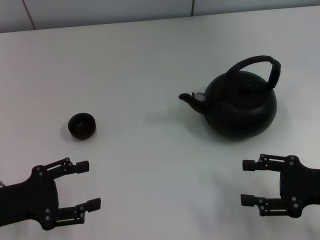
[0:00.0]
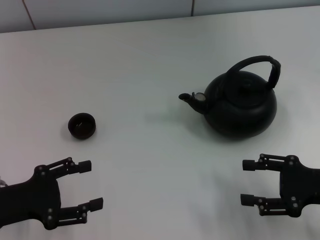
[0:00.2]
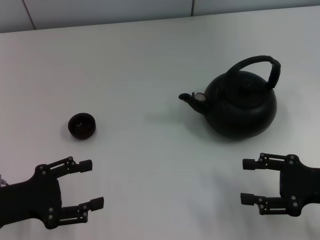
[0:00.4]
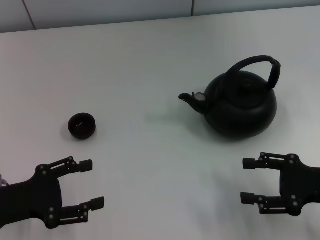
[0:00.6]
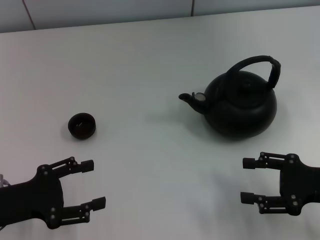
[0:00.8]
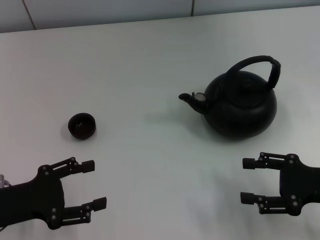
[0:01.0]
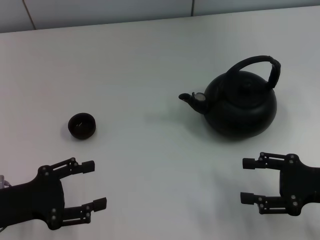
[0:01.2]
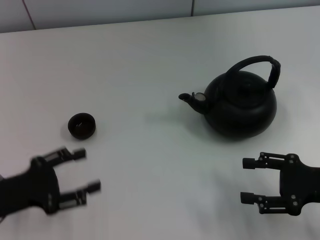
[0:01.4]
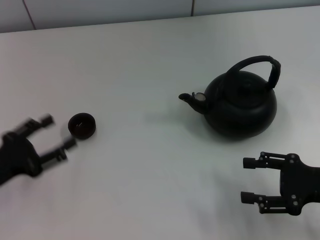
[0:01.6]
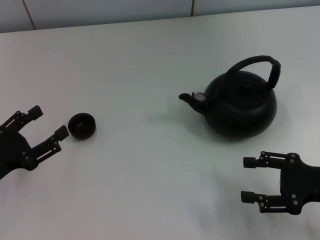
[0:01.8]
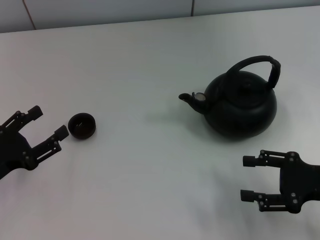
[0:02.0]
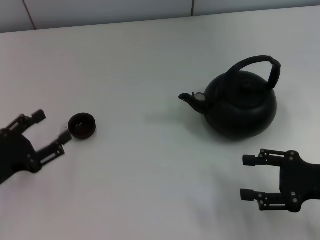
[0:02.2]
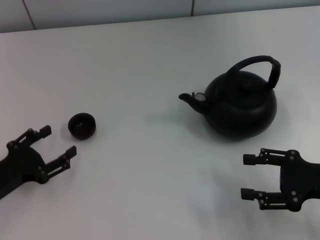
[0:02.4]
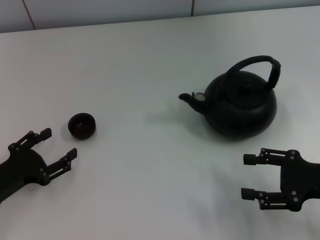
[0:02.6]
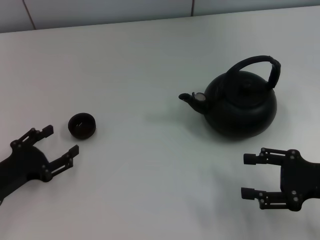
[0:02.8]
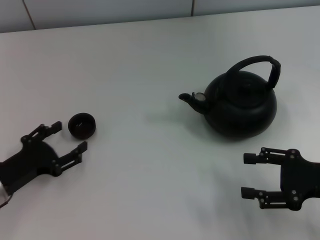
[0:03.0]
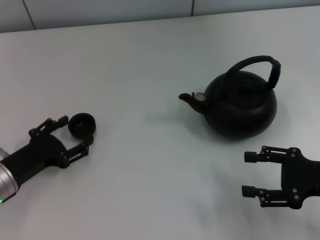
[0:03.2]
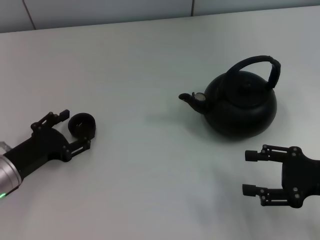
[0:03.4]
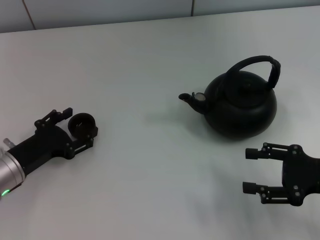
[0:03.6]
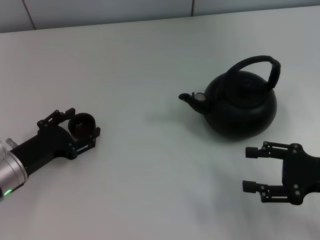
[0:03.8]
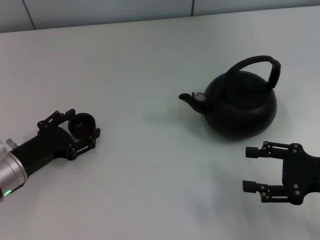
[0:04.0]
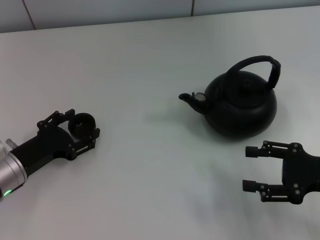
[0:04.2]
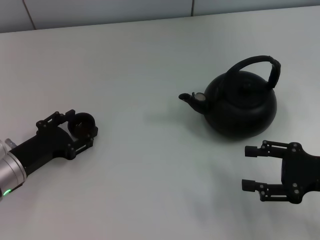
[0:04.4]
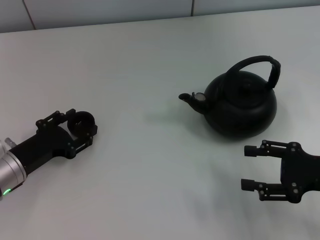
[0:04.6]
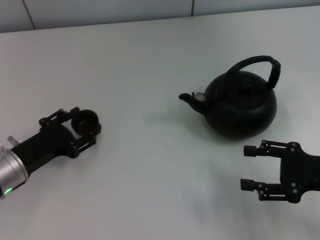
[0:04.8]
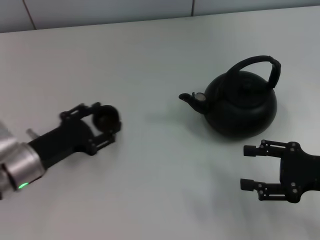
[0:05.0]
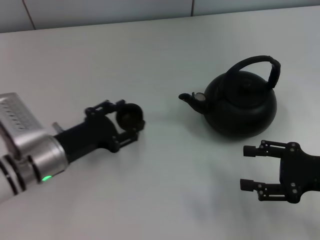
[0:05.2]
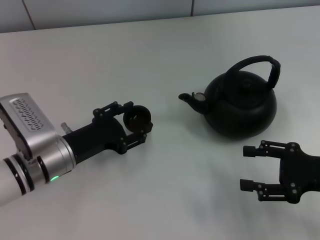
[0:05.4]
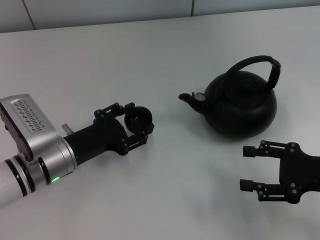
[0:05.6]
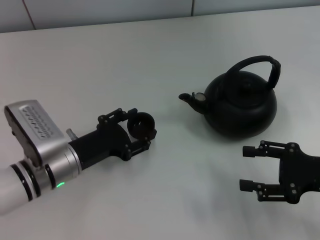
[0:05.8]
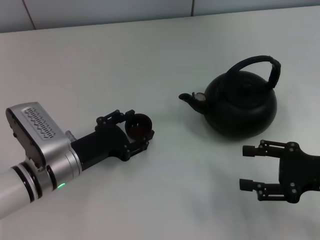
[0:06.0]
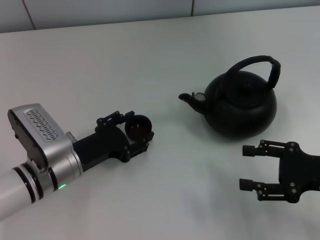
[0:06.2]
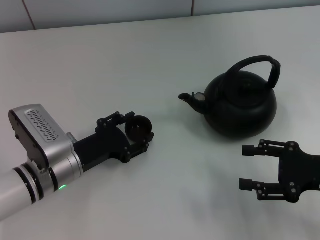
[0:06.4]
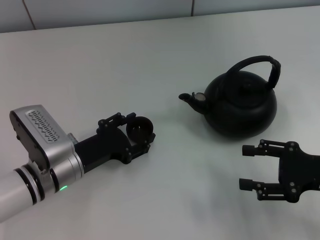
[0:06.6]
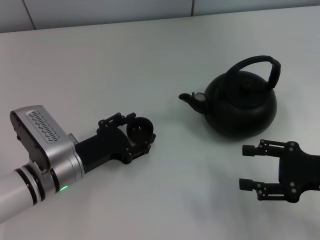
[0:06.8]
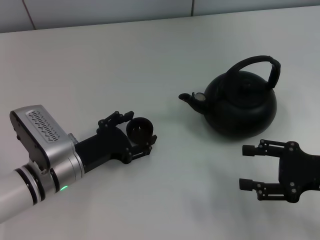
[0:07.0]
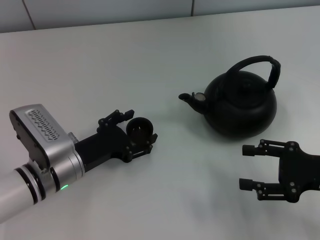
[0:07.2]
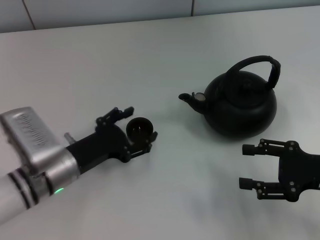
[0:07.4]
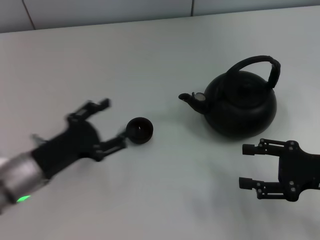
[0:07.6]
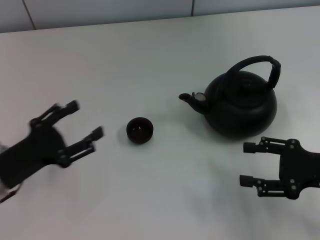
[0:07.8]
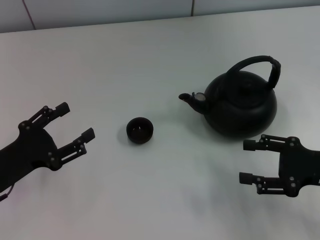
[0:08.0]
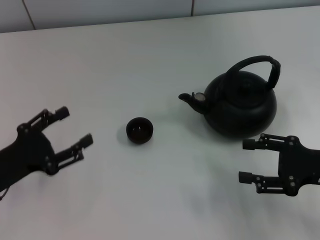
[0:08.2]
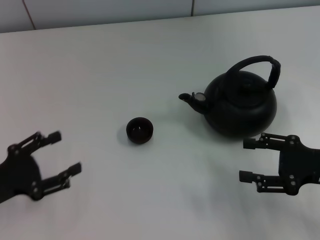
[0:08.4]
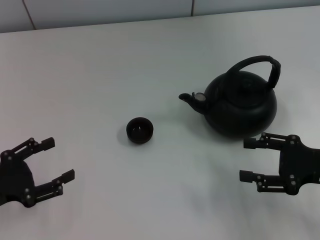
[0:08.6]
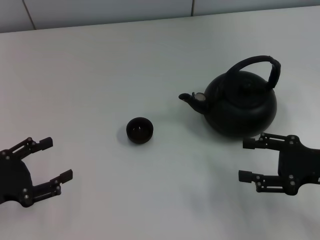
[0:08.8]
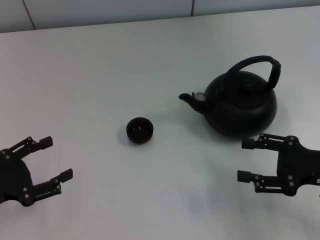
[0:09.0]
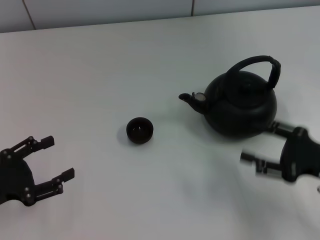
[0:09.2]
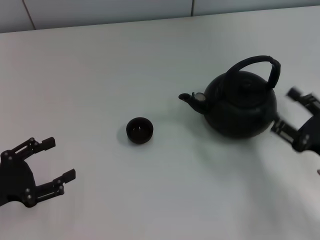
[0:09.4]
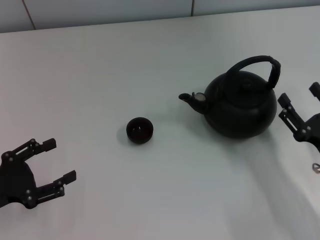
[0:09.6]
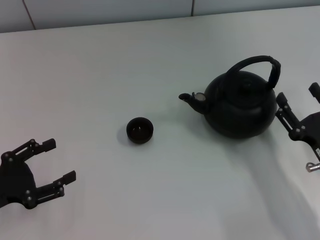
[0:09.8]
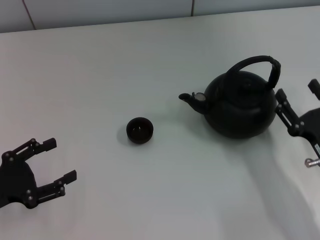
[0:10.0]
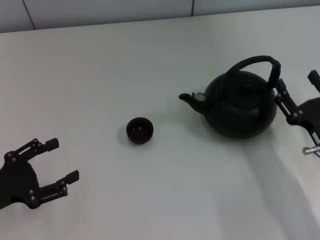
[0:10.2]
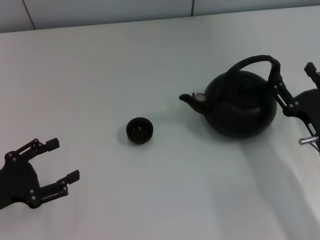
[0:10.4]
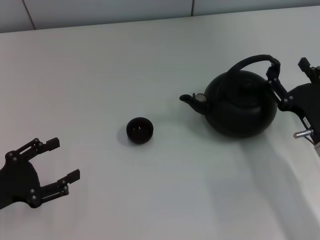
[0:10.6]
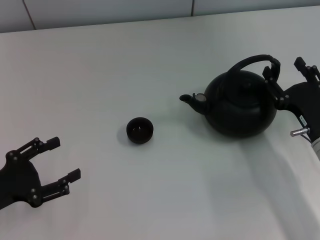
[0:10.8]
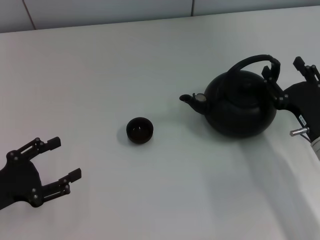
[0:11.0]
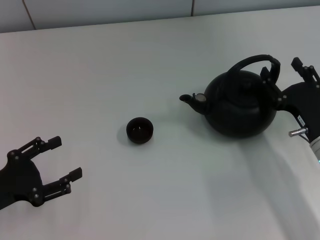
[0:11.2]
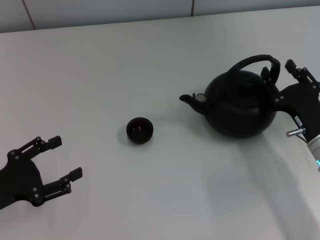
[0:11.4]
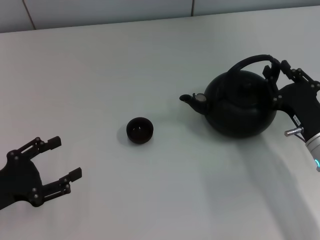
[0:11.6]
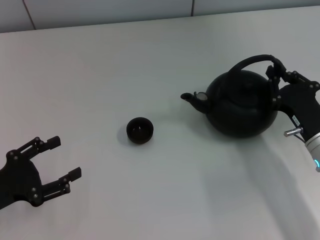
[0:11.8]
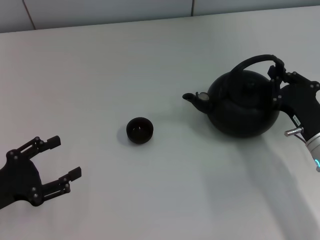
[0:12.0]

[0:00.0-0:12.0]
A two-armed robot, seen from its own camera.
Task of the whole recording: Grasp the handle of the teapot with one hand and pour tea into the teacup.
Step, 0:00.0 to 0:04.8: Pick up the teacup with the left gripper.
Step, 0:05.0 to 0:07.4: Place the teacup in the center of view with the left gripper.
0:01.6 to 0:03.0: The grippers move only a little.
0:03.0 to 0:04.4: The left gripper changes place by about 5 cm.
0:04.4 to 0:06.0: The left gripper moves to the right, some 10 cm.
0:06.0 to 0:07.6: The left gripper opens its fingers.
0:07.6 to 0:09.0: The left gripper shifts roughly 10 cm to the left.
0:09.0 to 0:10.4: The right gripper changes place by some 5 cm.
0:10.4 to 0:12.0: The right gripper closes its fingers.

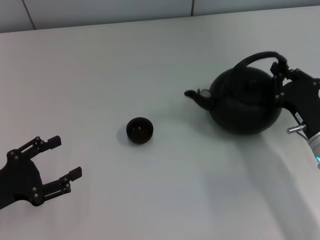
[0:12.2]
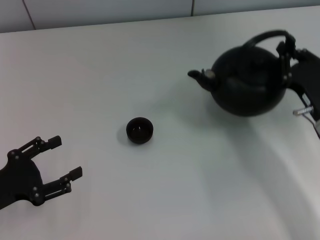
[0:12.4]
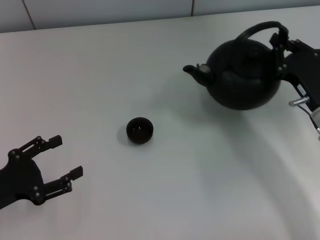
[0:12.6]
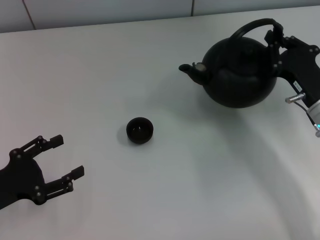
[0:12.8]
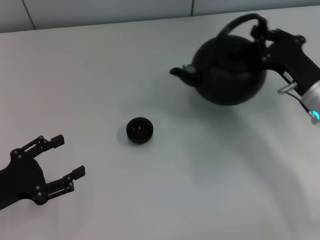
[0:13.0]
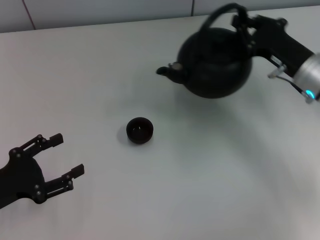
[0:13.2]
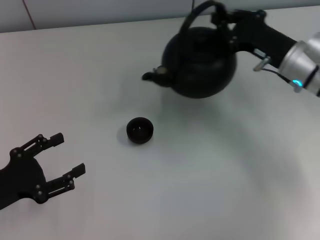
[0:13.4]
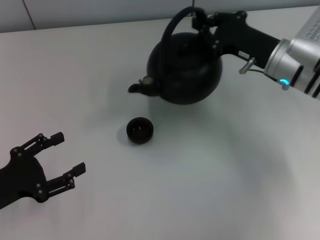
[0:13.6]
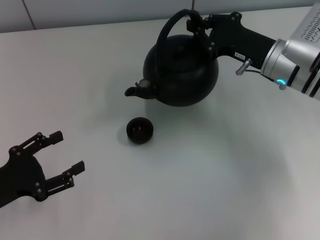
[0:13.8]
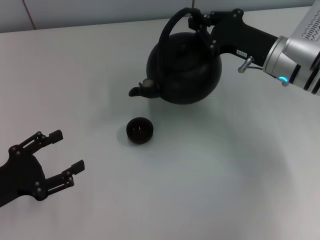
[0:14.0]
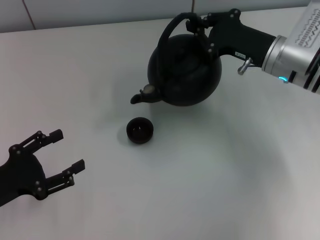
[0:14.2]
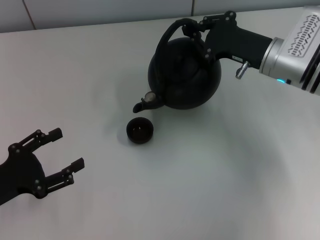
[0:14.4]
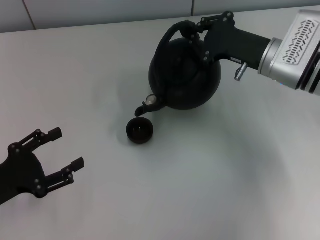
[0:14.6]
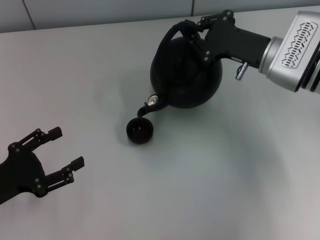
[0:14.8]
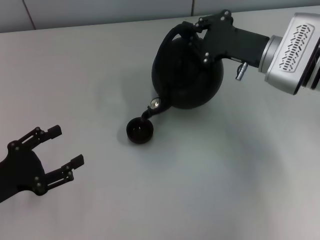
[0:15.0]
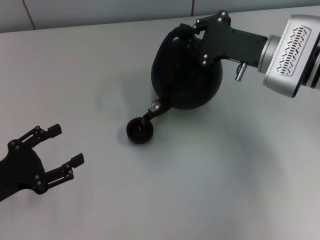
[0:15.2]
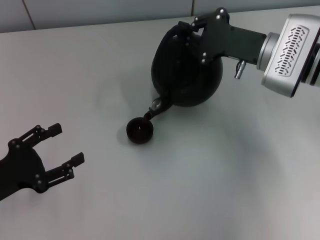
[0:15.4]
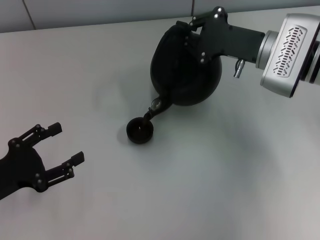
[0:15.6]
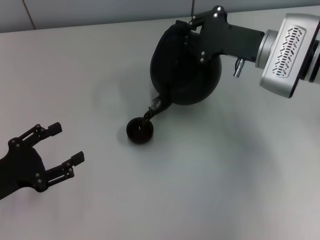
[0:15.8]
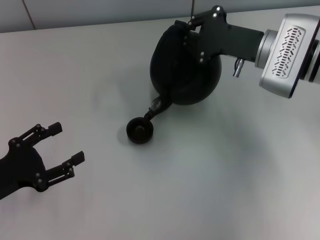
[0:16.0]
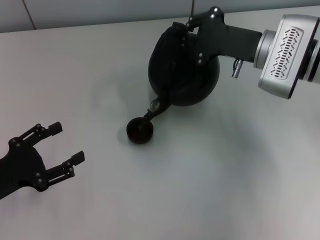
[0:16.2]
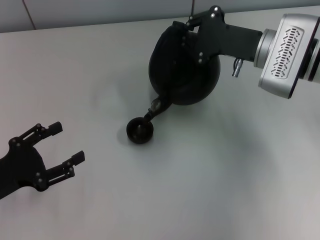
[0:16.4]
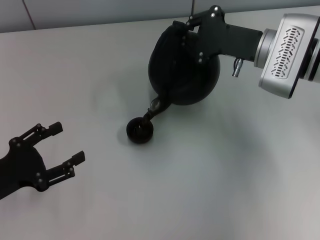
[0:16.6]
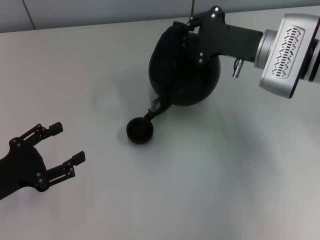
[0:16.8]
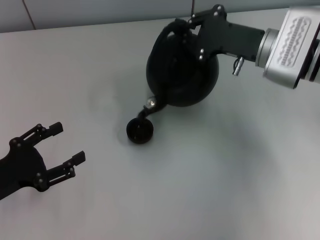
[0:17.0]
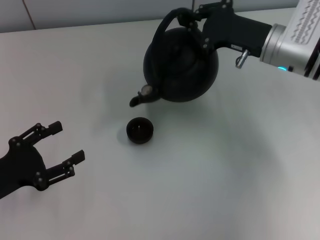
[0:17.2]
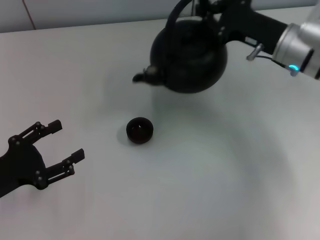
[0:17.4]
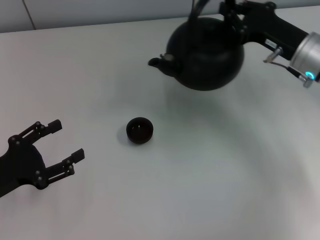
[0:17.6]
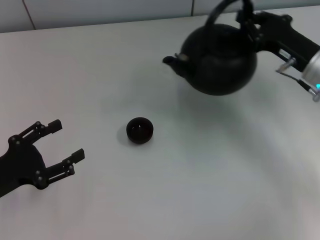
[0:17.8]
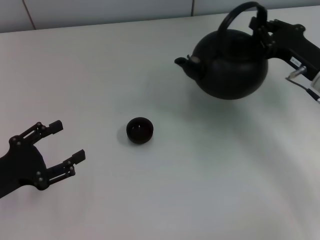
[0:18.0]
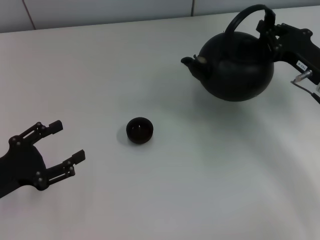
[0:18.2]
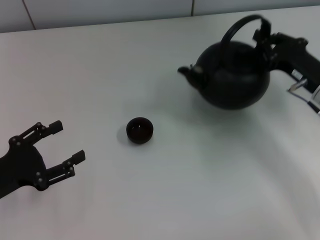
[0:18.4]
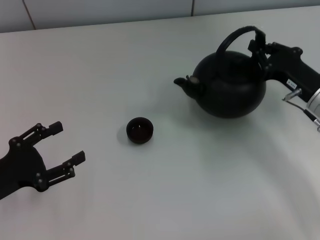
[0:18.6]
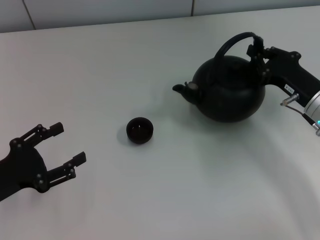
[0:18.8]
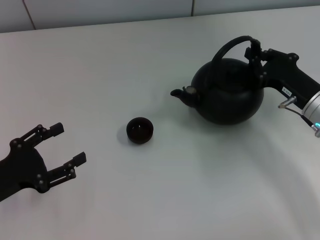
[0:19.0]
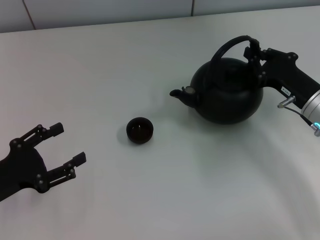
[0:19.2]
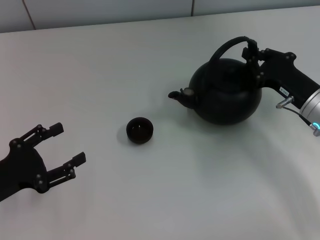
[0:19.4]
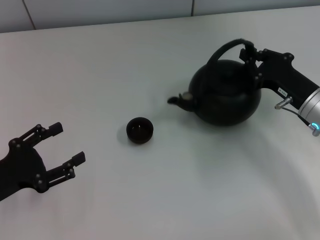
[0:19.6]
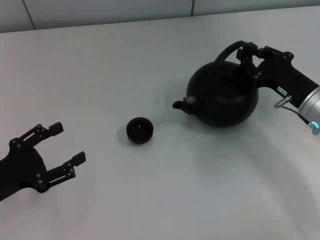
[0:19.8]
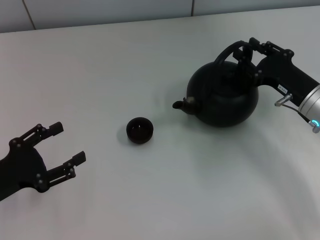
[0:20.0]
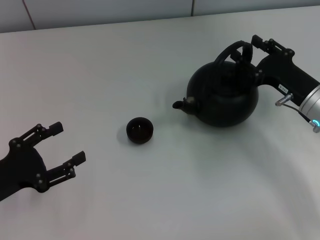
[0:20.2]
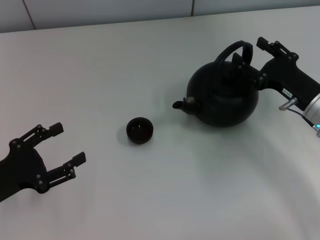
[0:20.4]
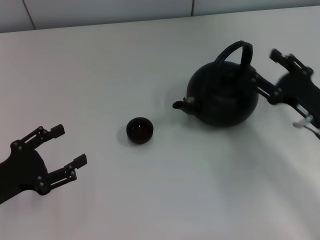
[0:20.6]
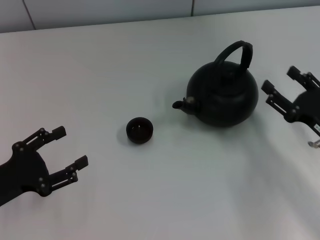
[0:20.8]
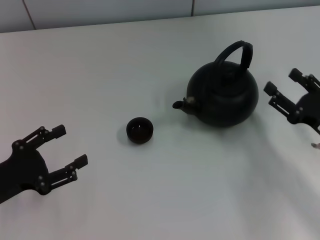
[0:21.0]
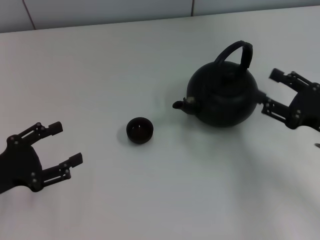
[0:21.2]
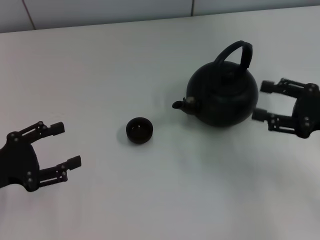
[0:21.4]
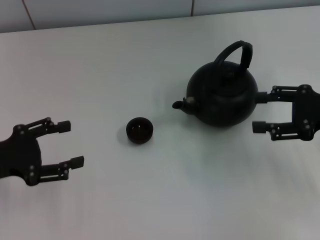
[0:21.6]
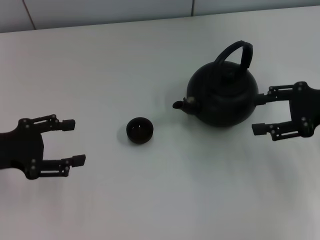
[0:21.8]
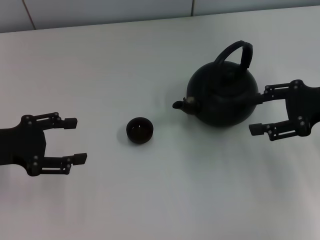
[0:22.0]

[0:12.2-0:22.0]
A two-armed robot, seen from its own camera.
Task of the whole recording: Grasp the handle of the teapot with one hand and pour tea into the teacup.
Step, 0:17.4 to 0:20.8: Put down the teapot with the right gripper.
0:12.2 to 0:13.6: The right gripper goes approximately 15 cm forward and upward.
0:15.0 to 0:16.4: The grippers stay close to where they were, moving slightly.
0:16.4 to 0:17.8: The right gripper moves to the right, roughly 5 cm.
0:17.8 to 0:19.2: The right gripper moves some 5 cm.
0:19.2 to 0:20.6: The right gripper opens its fingers.
0:20.6 to 0:22.0: The right gripper moves upward, about 10 cm, while the left gripper shifts some 10 cm forward and upward.
